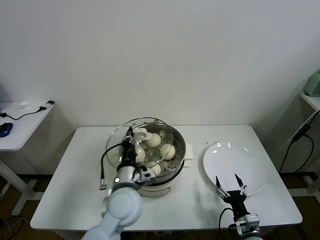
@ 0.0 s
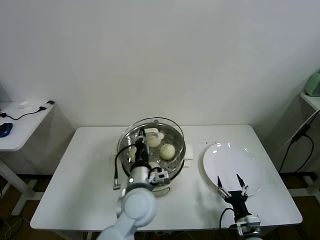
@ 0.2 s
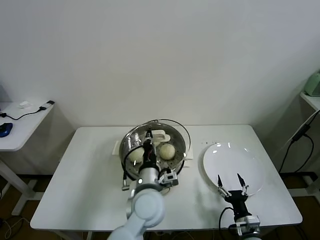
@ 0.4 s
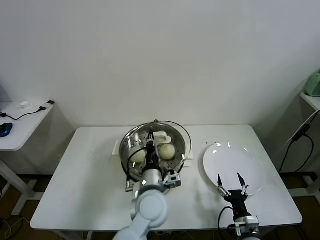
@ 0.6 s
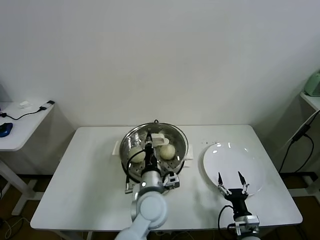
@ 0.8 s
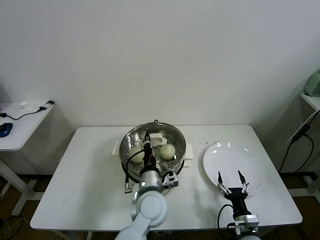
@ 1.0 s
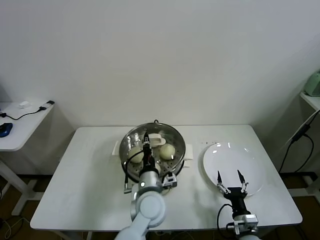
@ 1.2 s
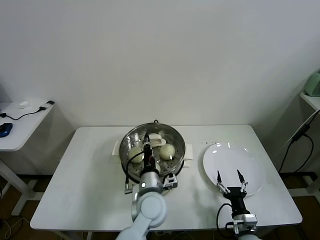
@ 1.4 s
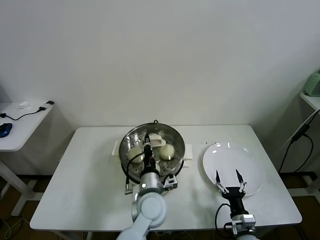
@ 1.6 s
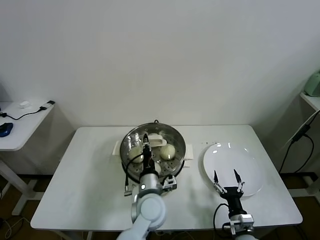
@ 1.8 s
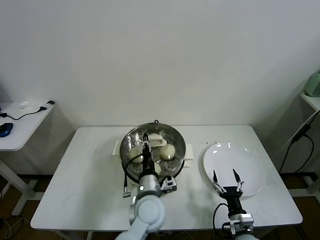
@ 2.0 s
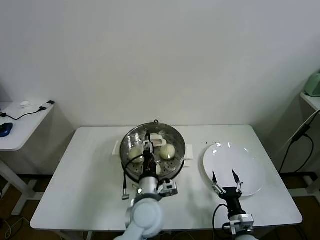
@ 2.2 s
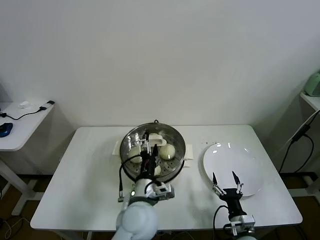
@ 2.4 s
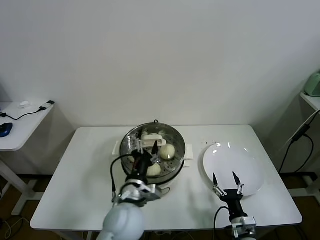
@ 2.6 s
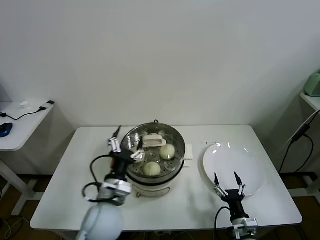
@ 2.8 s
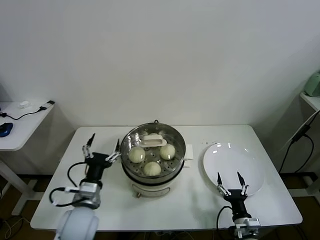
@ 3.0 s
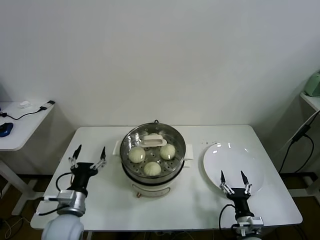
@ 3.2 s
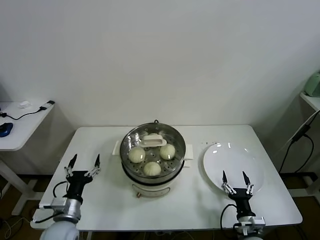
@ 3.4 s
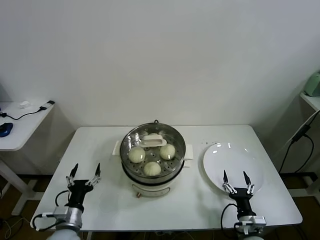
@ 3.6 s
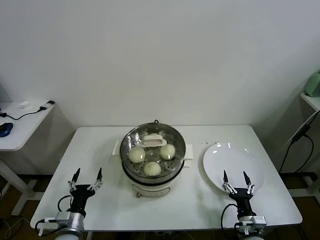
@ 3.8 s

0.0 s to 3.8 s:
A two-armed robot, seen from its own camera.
Task of the whole recording: take steamed baozi put them in steamer.
Step, 0.0 to 1.8 s: Place the pot lid on the steamer with left gripper.
0.0 to 1.2 s: The left gripper moves to the right, roughly 10 cm.
1.2 to 2.6 s: The left gripper ends up about 10 cm from where it was, and opens up.
2.6 to 3.8 s: The left gripper is displaced to the left and downward by some 25 cm.
